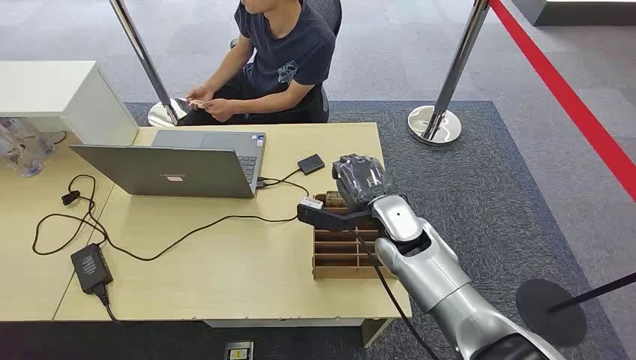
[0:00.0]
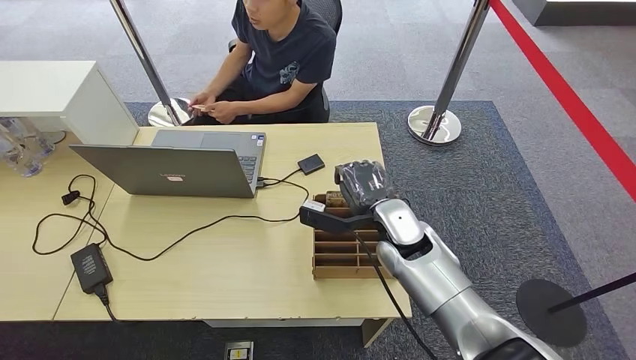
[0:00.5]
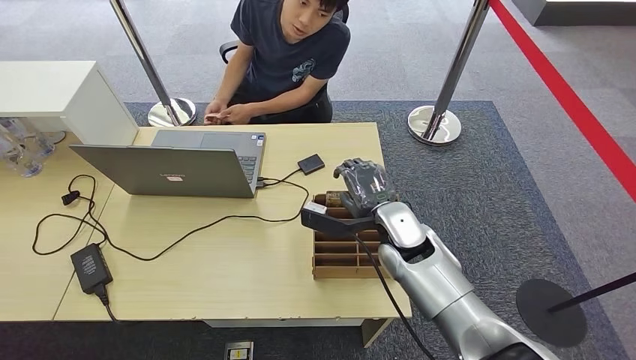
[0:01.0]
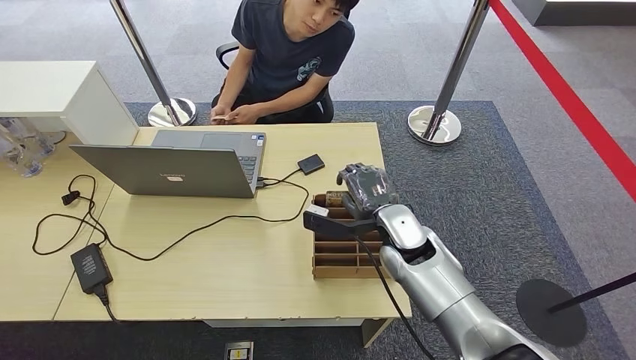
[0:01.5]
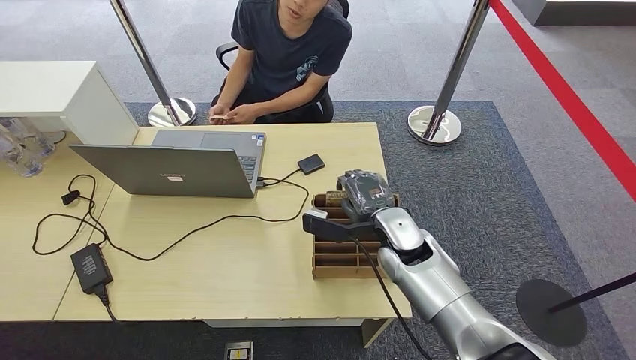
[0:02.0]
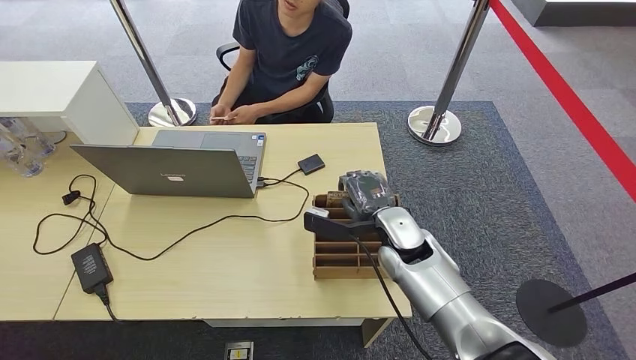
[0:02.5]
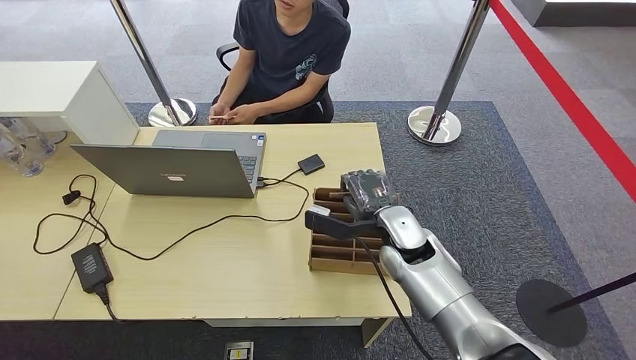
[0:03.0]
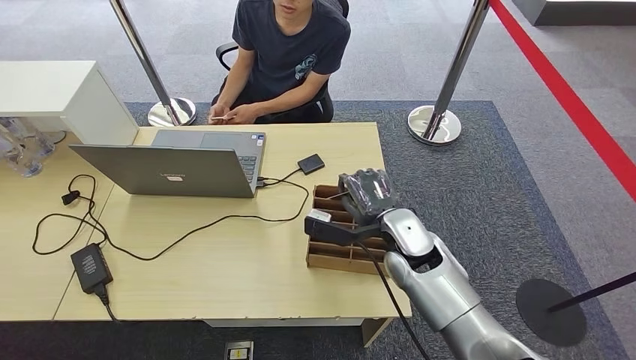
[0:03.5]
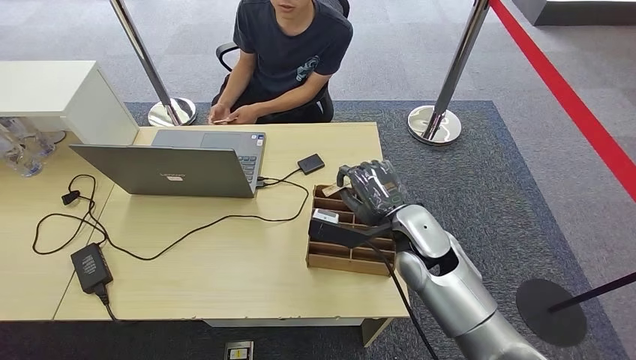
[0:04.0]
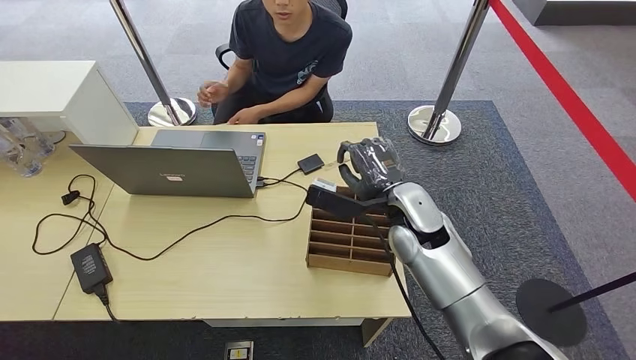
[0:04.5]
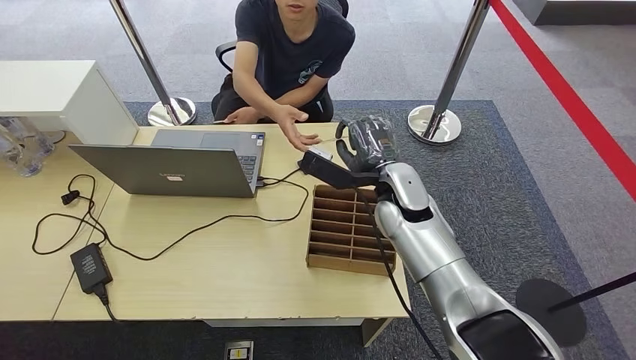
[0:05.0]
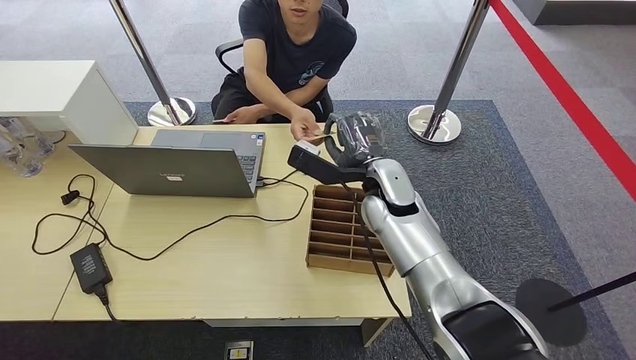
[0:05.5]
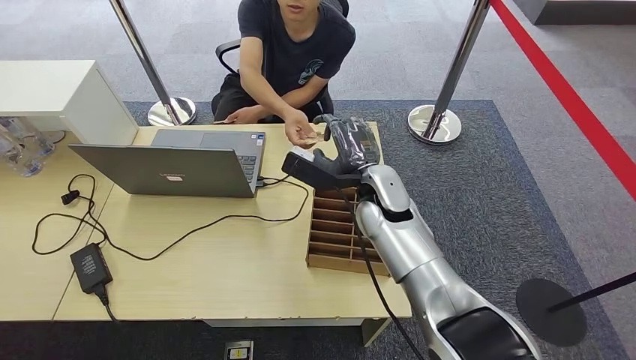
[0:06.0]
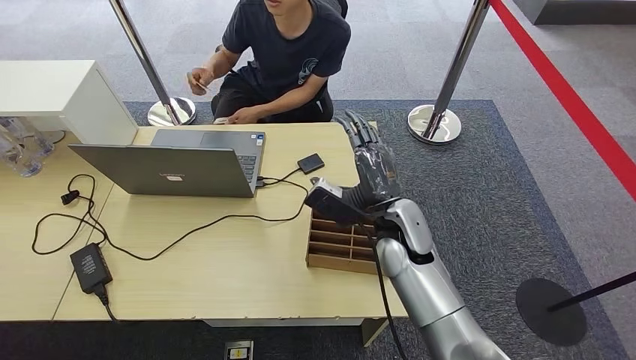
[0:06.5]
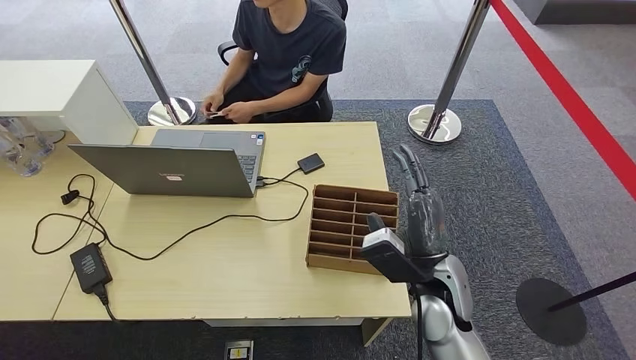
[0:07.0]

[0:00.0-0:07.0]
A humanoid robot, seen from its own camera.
Step, 0:00.0 to 0:04.5: Pick up the key card from the card box.
Step, 0:05.0 to 0:07.0: Hand the key card to the target.
0:02.0 to 0:03.5: There are only small adjustments of the hands.
0:03.5 to 0:05.0: The right hand travels forward and upward by roughly 10 cm.
0:05.0 to 0:07.0: The right hand heads backward, covering roughly 15 cm.

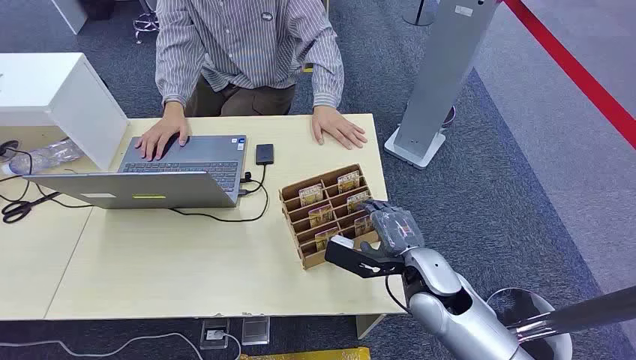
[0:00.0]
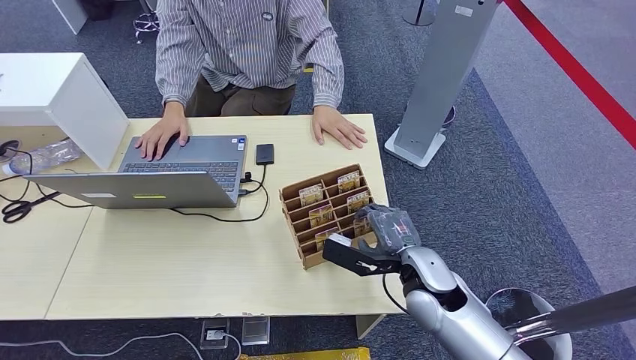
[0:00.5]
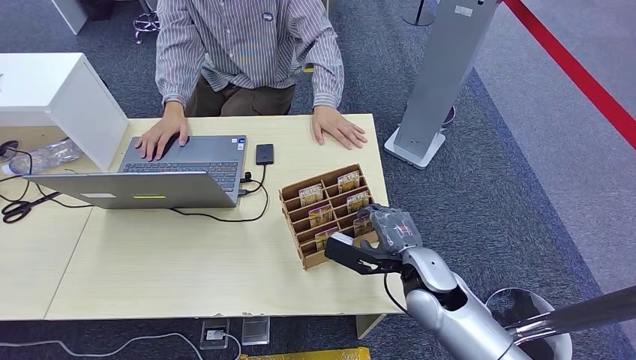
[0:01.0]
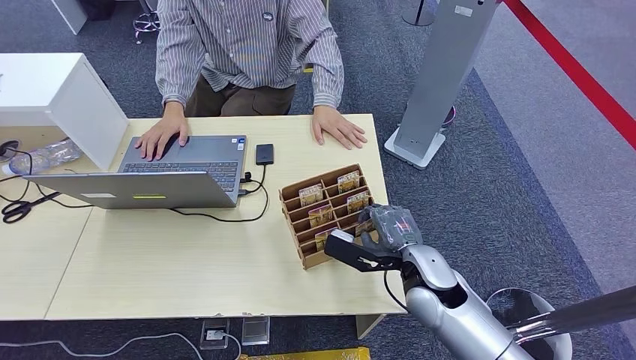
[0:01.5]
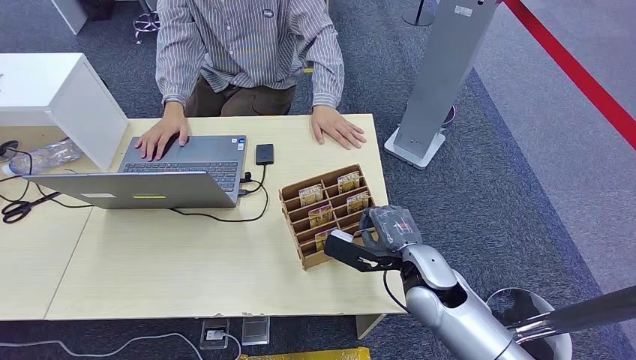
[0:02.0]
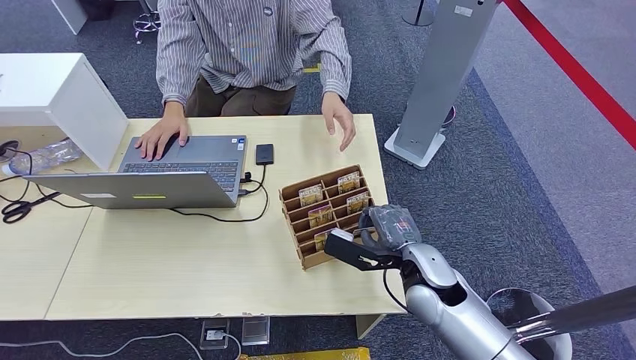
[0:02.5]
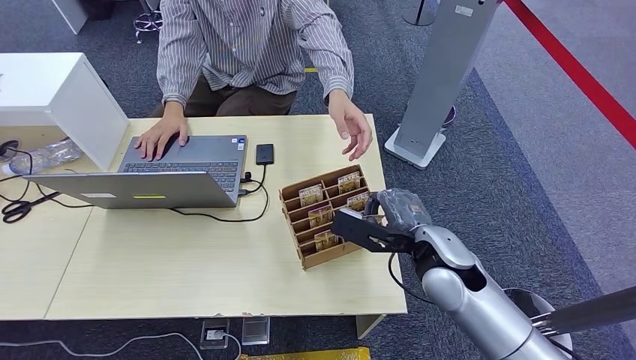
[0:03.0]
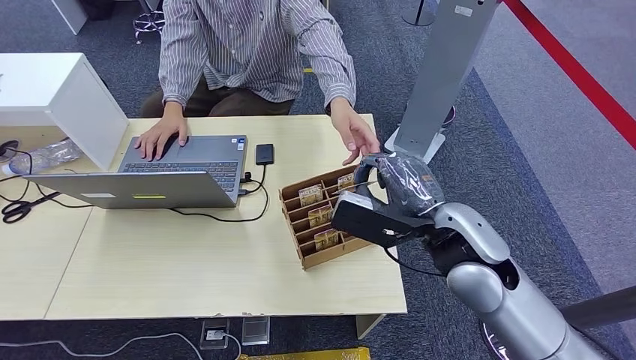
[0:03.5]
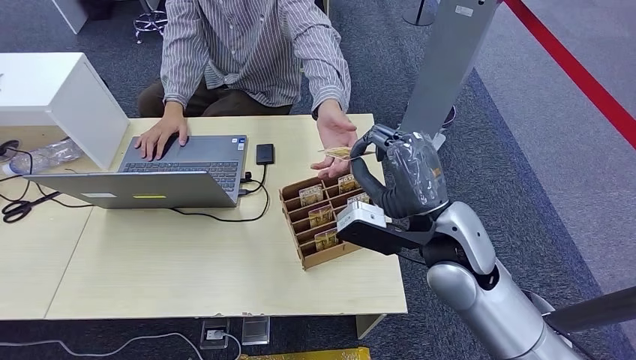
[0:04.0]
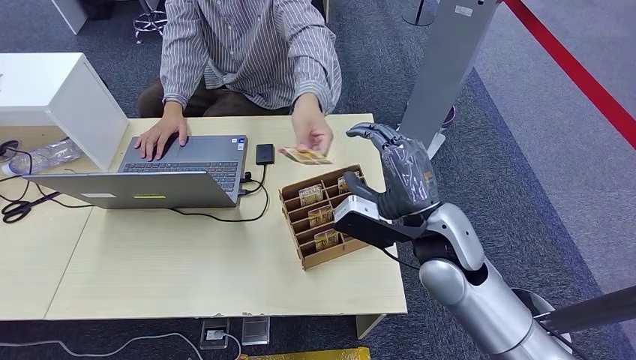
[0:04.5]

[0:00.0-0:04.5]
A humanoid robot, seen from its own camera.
Step, 0:00.0 to 0:03.0: Pick up the key card from the card box.
Step, 0:04.0 to 0:04.5: Hand the key card to the target.
0:02.0 to 0:04.5: The right hand heads upward, covering some 10 cm.
